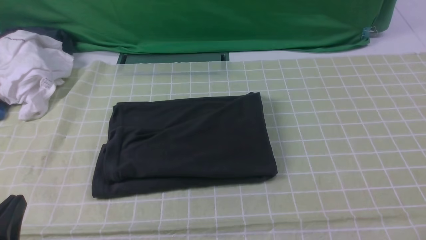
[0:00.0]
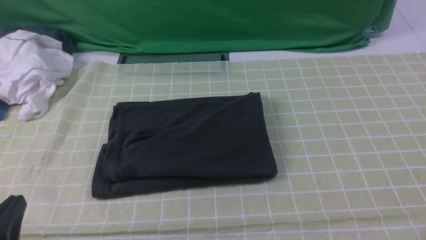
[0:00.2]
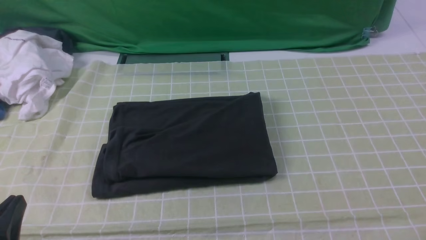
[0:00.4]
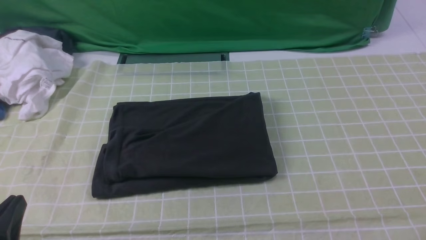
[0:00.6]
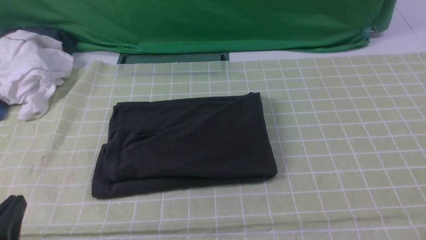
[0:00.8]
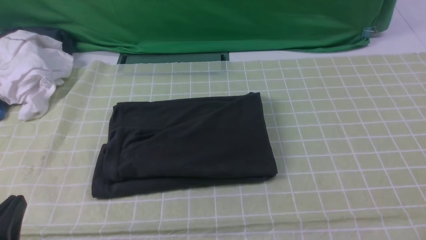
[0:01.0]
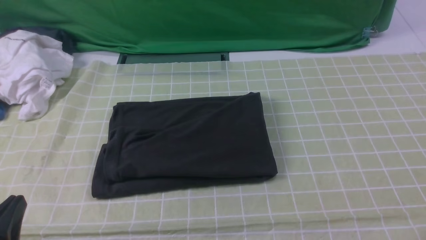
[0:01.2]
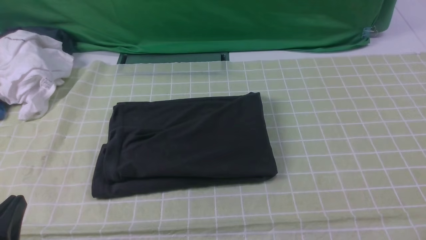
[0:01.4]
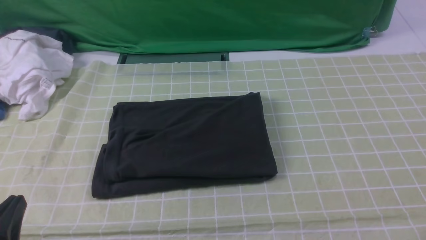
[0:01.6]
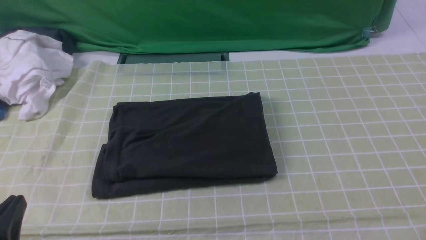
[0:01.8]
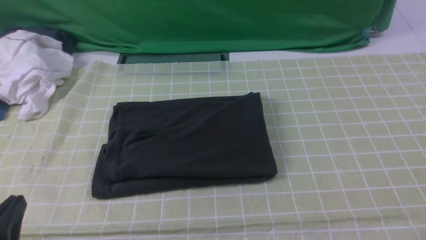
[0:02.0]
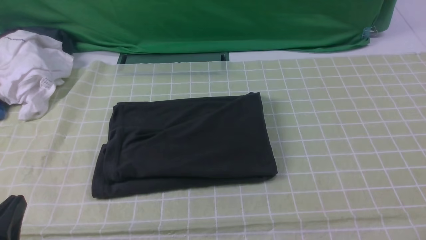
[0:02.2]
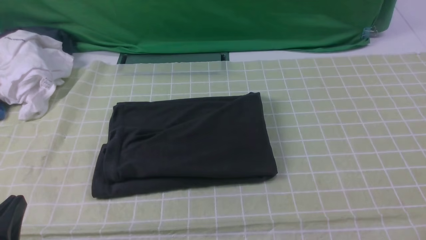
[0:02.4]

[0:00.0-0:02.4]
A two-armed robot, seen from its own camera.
0:00.0 to 0:02.4: Neither gripper changes place.

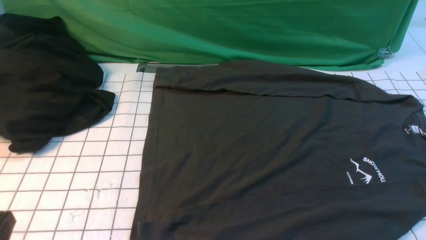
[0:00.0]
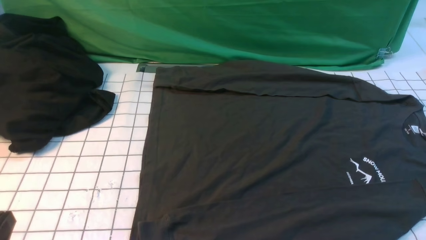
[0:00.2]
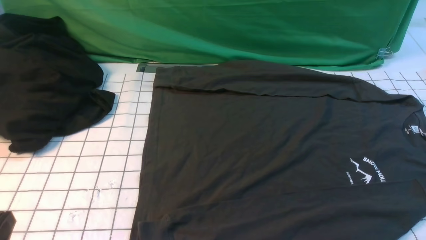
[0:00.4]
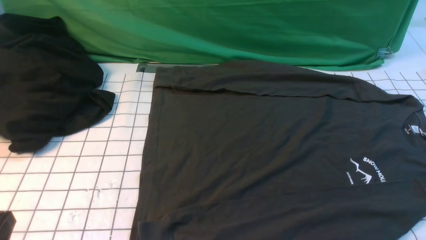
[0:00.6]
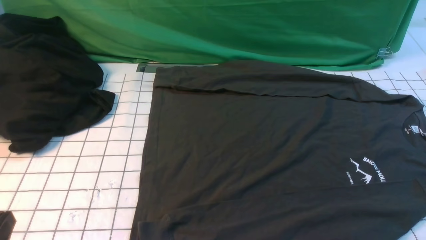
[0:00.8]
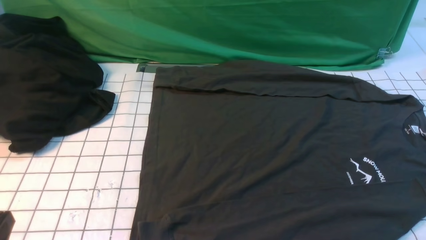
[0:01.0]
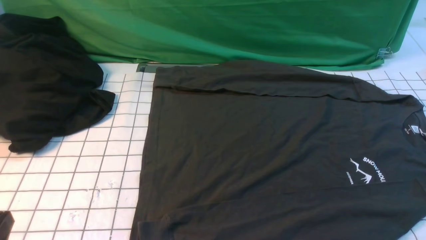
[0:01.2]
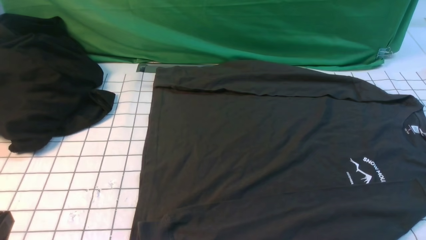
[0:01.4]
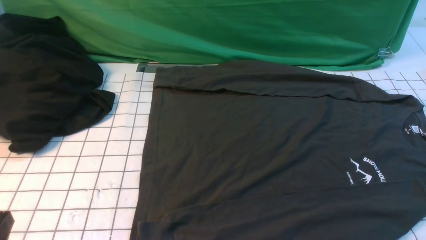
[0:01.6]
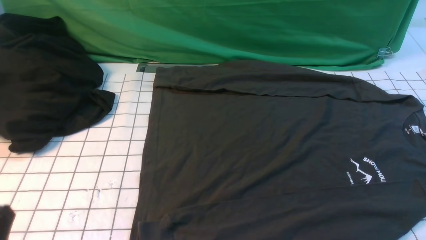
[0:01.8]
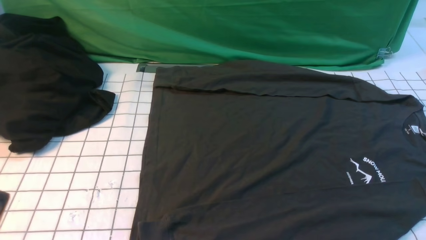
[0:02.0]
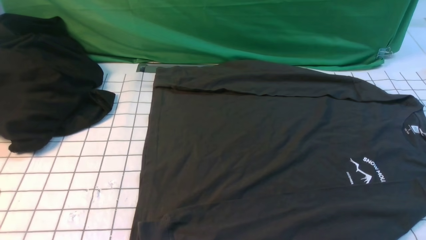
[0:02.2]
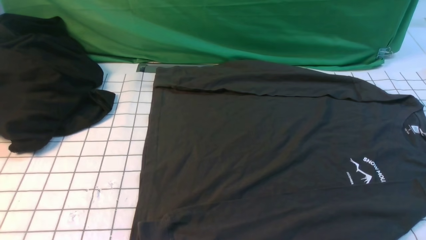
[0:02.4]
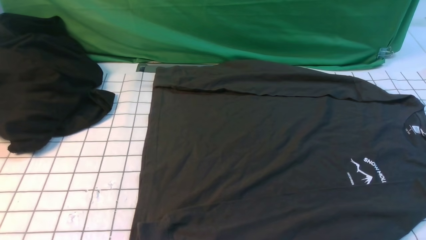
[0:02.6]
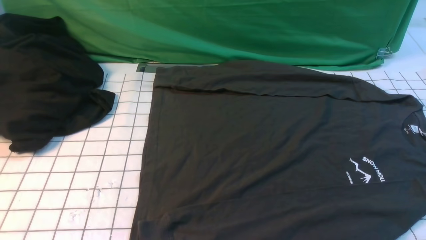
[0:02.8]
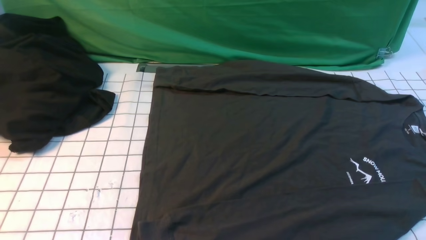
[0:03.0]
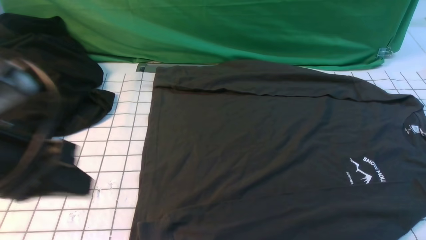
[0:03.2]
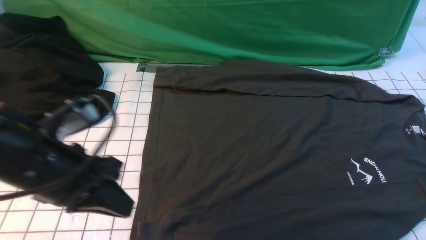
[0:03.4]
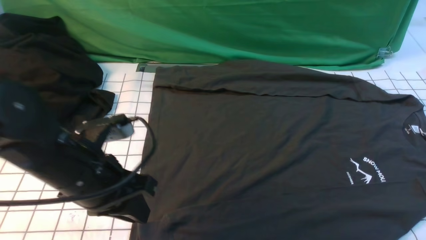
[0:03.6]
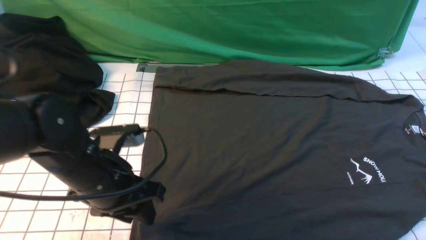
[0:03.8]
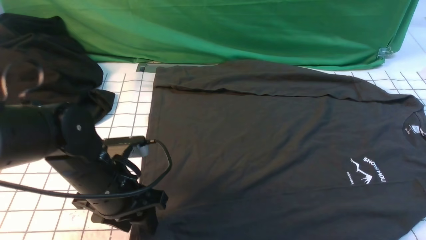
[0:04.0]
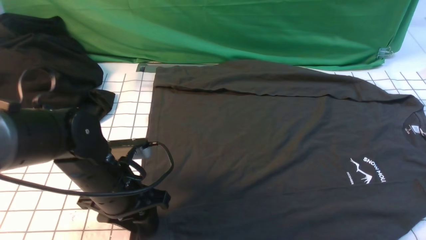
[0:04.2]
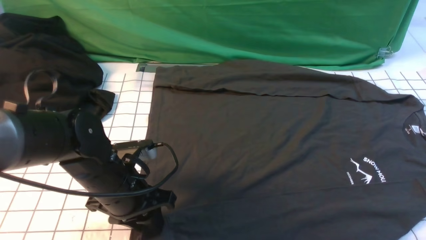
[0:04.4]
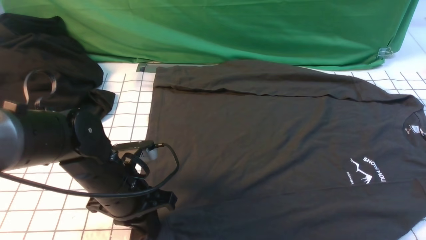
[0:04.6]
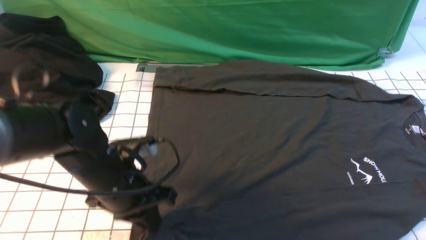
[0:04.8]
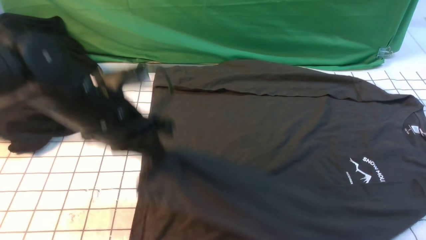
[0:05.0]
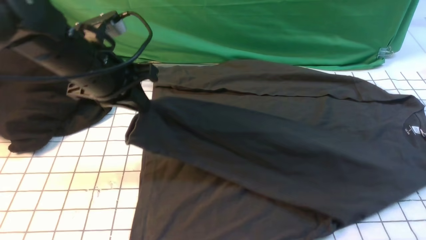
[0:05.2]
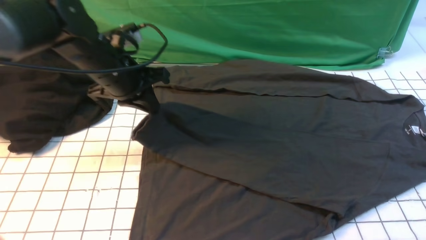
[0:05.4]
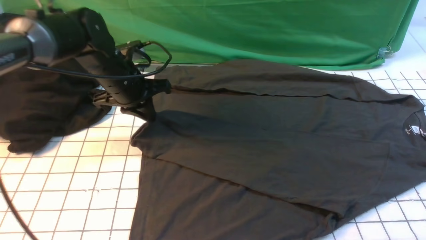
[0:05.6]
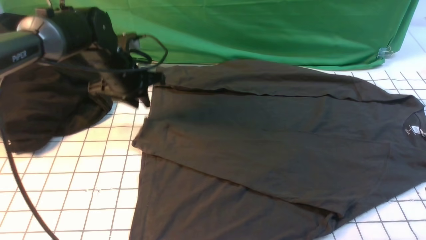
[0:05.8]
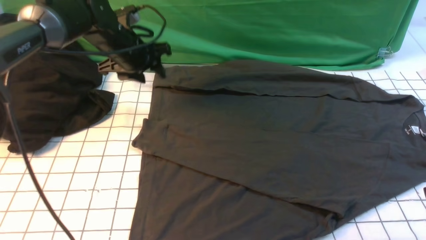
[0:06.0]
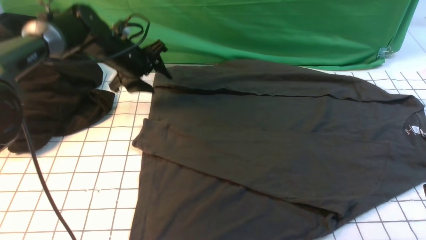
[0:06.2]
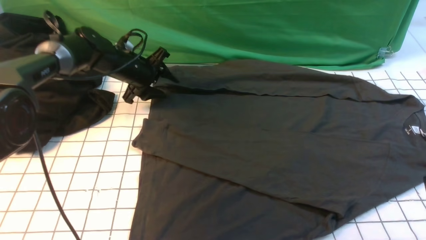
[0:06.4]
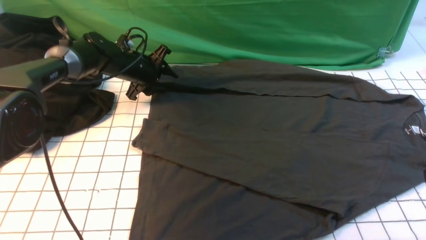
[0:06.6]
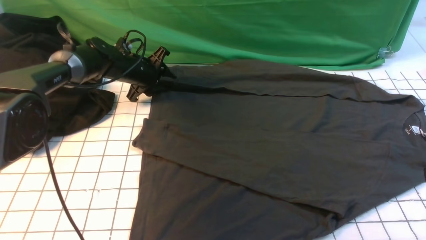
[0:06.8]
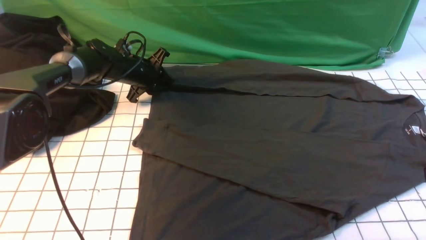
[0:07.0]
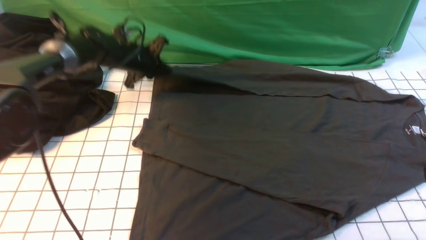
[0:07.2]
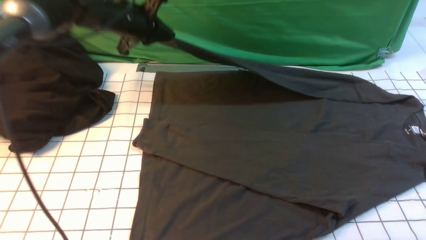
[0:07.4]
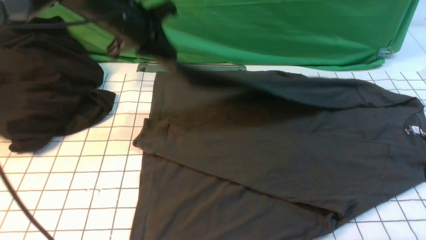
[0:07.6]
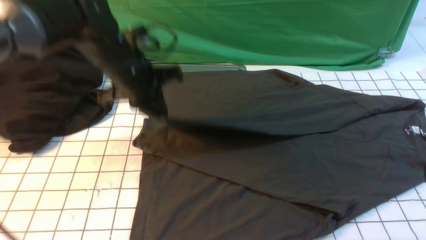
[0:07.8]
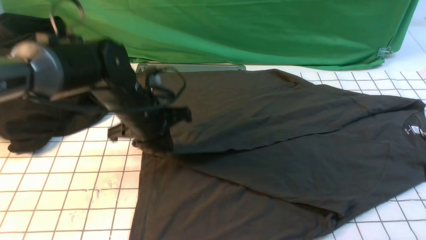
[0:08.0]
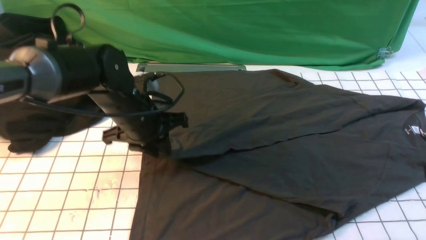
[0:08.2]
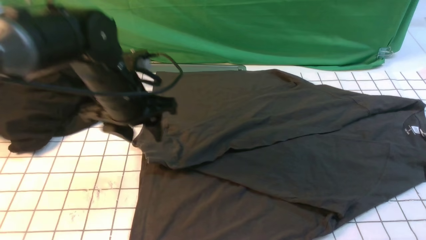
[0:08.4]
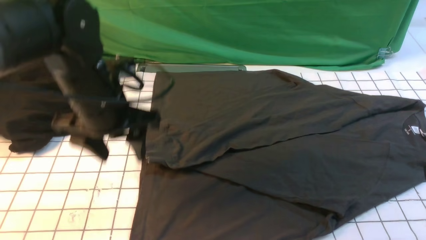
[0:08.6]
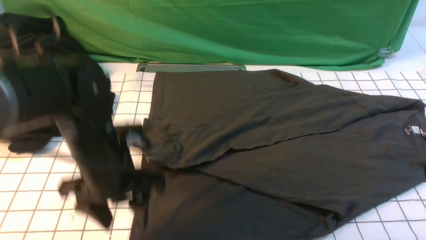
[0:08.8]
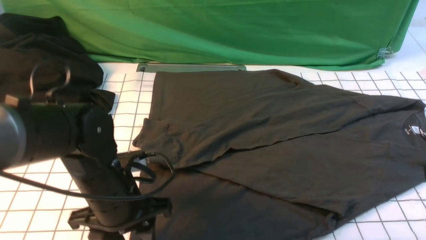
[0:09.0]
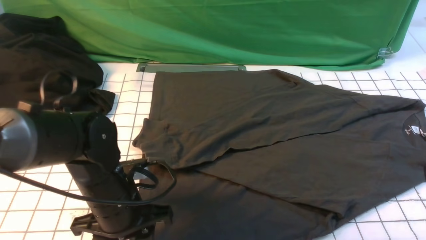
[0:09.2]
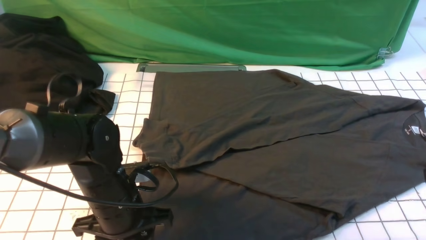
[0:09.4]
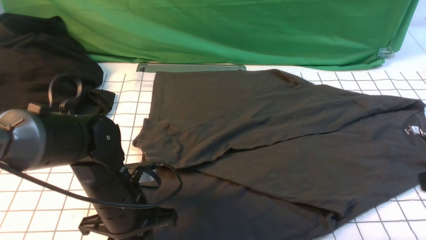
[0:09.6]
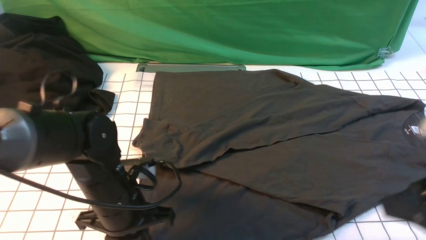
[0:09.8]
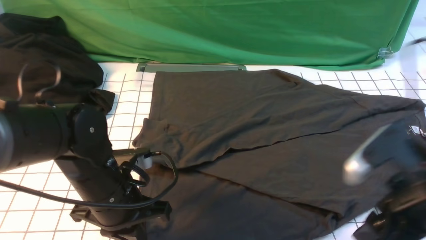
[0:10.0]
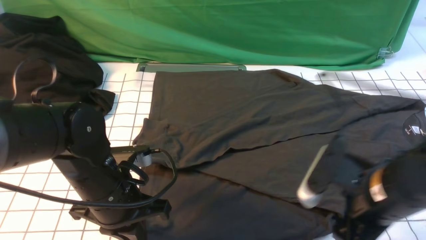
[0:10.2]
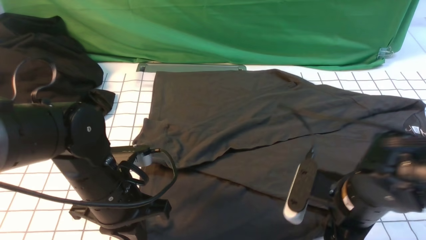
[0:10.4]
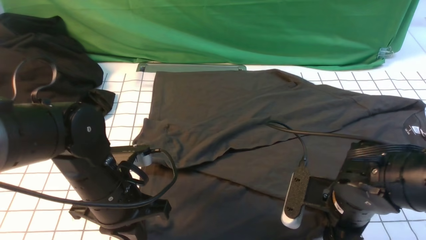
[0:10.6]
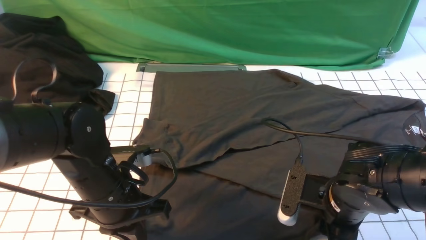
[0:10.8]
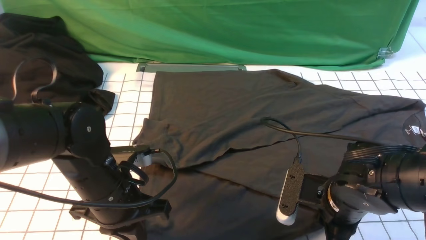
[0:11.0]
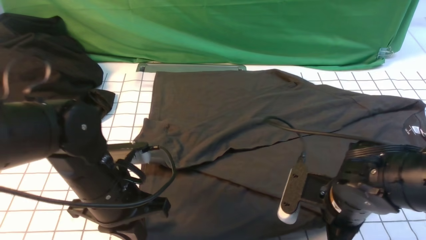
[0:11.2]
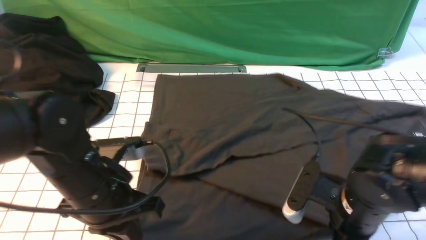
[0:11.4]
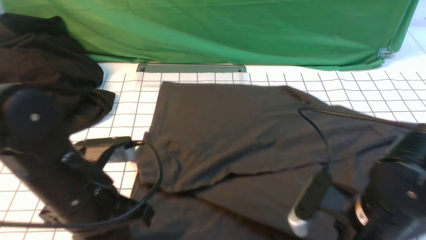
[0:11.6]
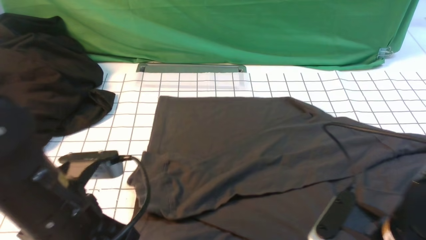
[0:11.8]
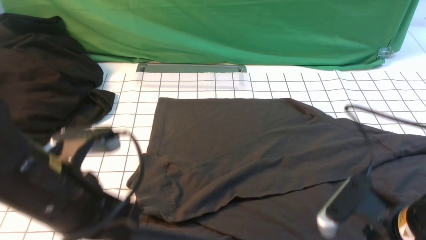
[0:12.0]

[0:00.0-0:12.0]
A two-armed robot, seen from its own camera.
Step, 0:00.0 to 0:04.4: use the left arm to clamp the cuff closest to it.
Step, 0:04.6 to 0:05.6: use the left arm to drag and place the cuff at the centered position on the left edge of the fabric.
Step, 0:06.0 to 0:07.0: use the left arm to clamp the cuff farthest from it.
Step, 0:07.2 to 0:08.2: use the left arm to drag and drop the cuff onto the cuff closest to the left arm.
Step, 0:08.6 to 0:11.4: use both arms simultaneously to clamp the lower edge of the clothing fabric.
0:00.0 to 0:01.6: Both grippers stay about where they are.
0:03.0 to 0:04.4: The left gripper shifts some 25 cm downward, forward and to the right, and opens. Meanwhile the right gripper moves forward, approximately 5 cm.
0:04.4 to 0:06.0: The left gripper is displaced forward by about 25 cm, and opens.
0:06.0 to 0:07.6: The left gripper moves upward and backward, about 10 cm, and closes its fingers.
0:07.6 to 0:09.0: The left gripper heads backward and downward, covering some 20 cm, and opens its fingers.
0:09.0 to 0:10.4: The right gripper heads downward, to the left and forward, covering some 20 cm, and opens. The left gripper closes up.
0:10.4 to 0:12.0: The right gripper is displaced backward by some 5 cm, and closes, while the left gripper is displaced upward by roughly 10 cm.

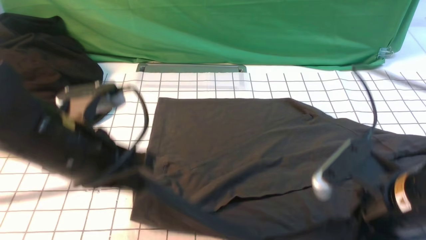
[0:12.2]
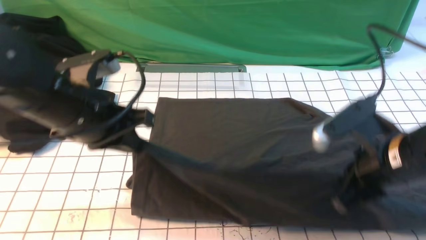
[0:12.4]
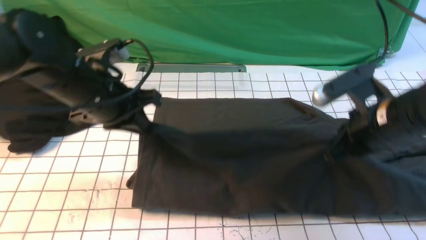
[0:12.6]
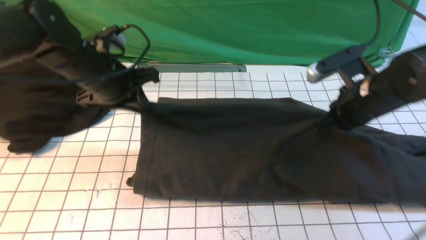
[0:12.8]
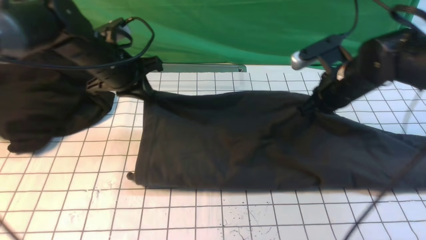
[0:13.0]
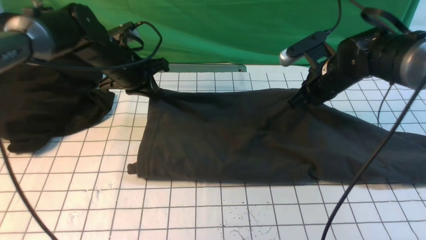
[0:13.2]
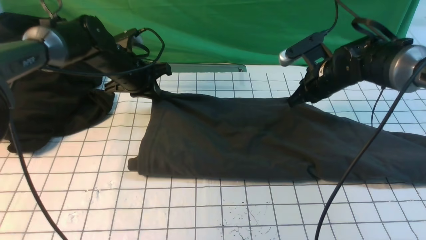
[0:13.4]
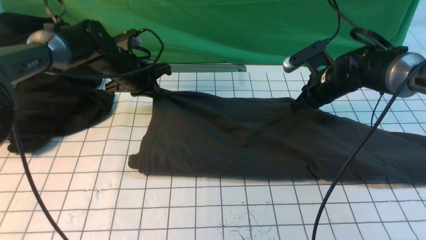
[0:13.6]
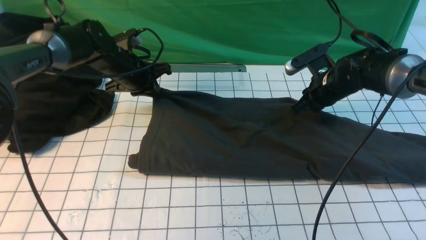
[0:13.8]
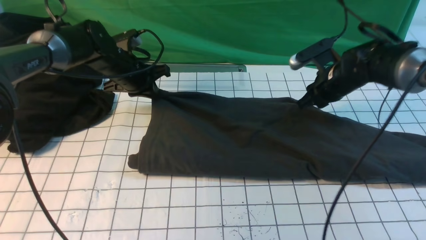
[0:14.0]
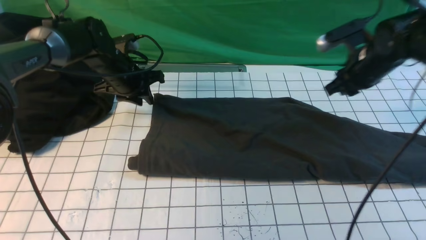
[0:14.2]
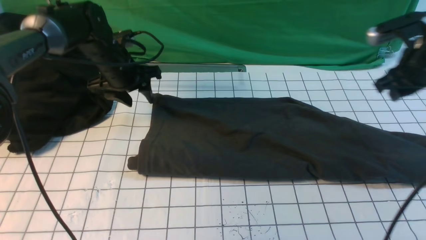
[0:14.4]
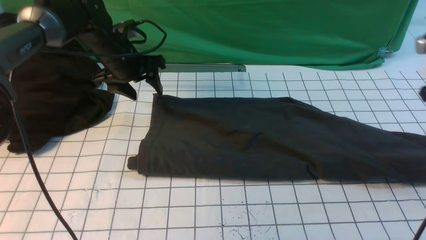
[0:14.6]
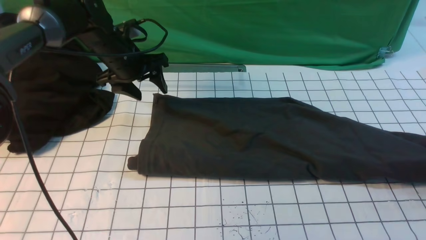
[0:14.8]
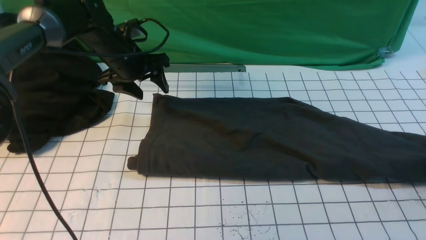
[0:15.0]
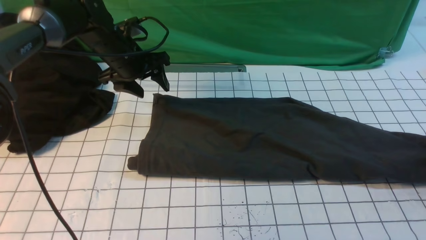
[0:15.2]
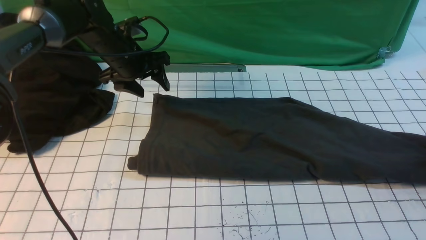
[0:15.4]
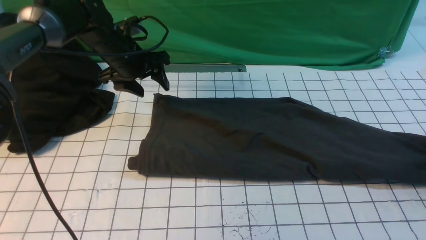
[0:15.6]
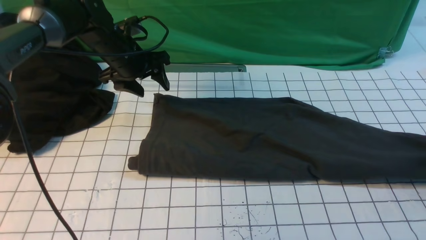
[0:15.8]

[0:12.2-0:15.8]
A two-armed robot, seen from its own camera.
Step, 0:12.2 to 0:14.2: use both arms to drag the lower edge of the fabric forward and fold it over the upper edge.
0:12.2 to 0:14.0: The grippers both shift forward by about 25 cm. The right gripper opens its fingers.
0:14.0 to 0:15.8: The right gripper shifts roughly 25 cm to the right, and closes, while the left gripper opens its fingers.
